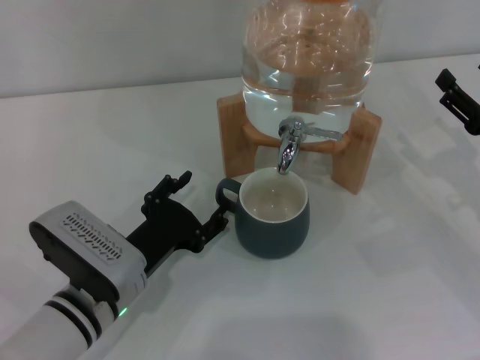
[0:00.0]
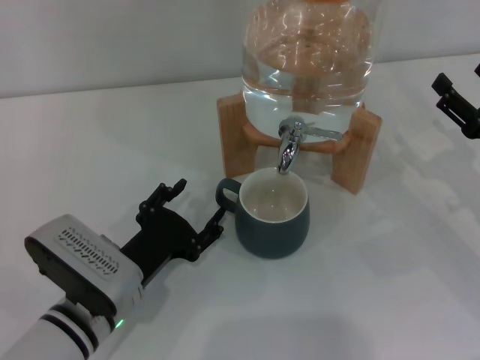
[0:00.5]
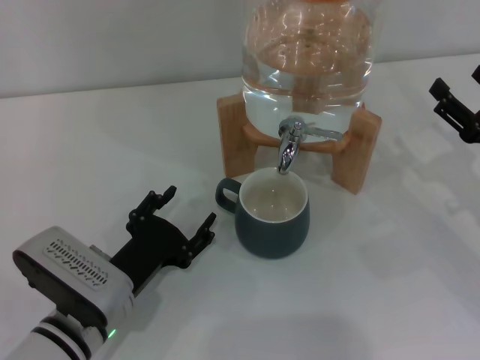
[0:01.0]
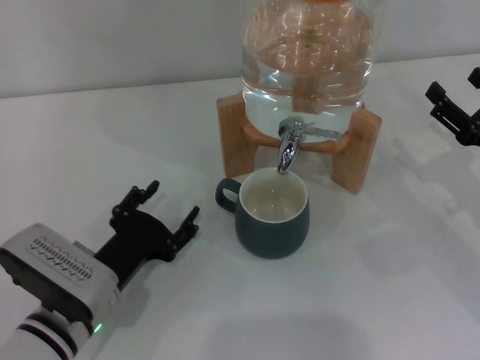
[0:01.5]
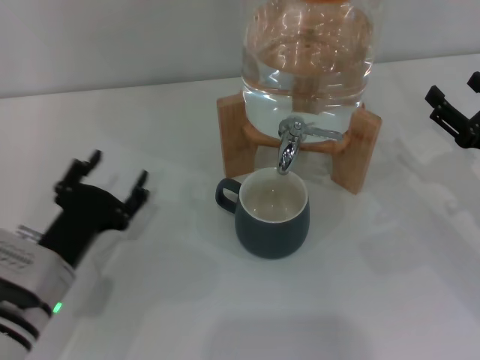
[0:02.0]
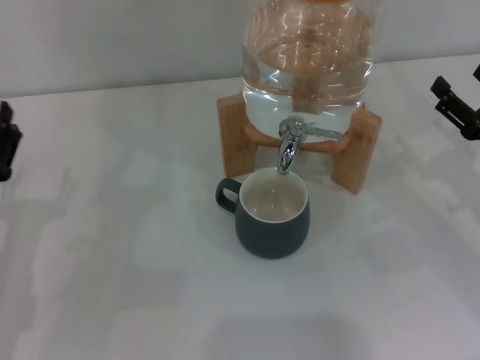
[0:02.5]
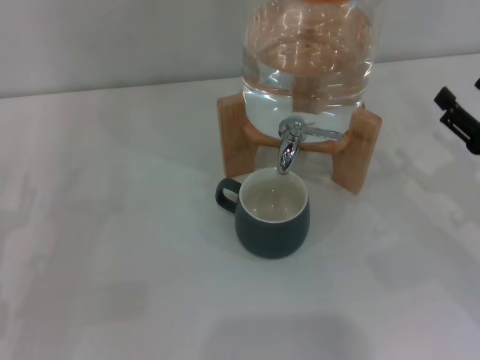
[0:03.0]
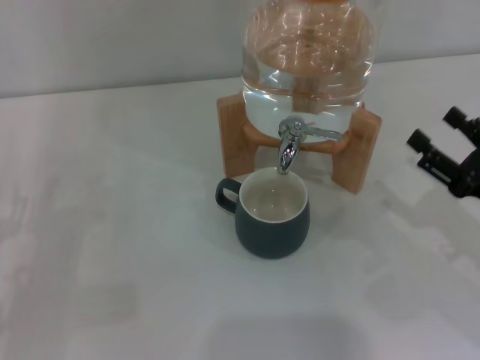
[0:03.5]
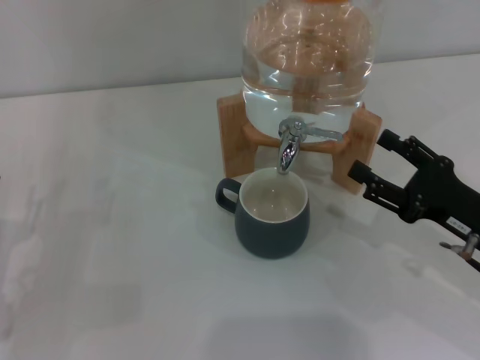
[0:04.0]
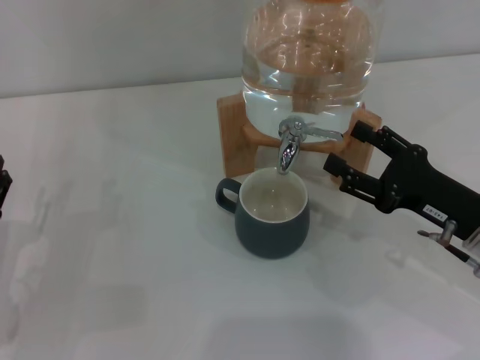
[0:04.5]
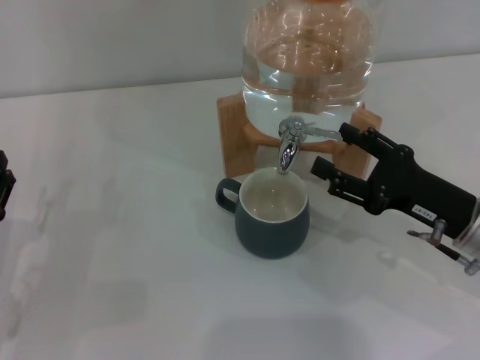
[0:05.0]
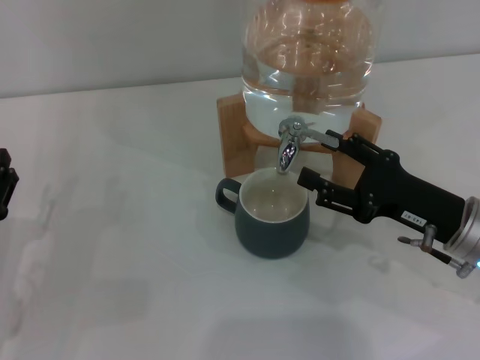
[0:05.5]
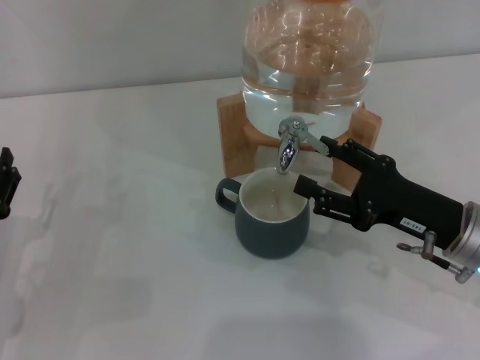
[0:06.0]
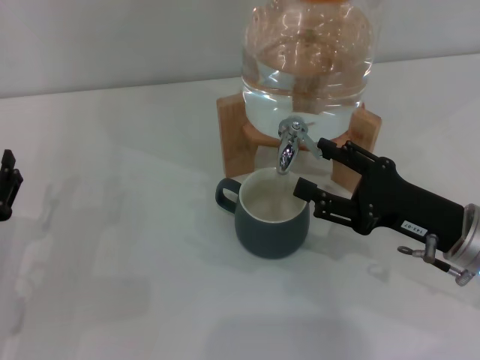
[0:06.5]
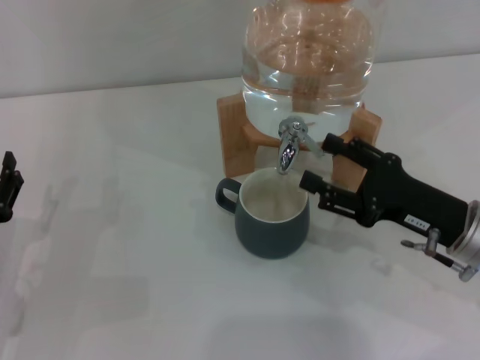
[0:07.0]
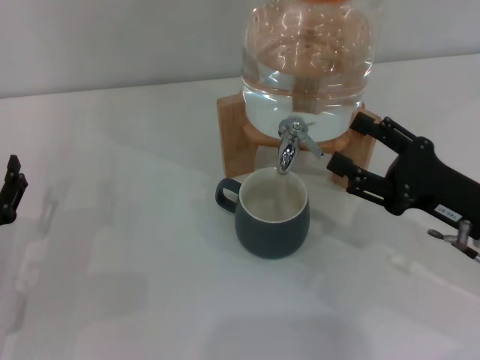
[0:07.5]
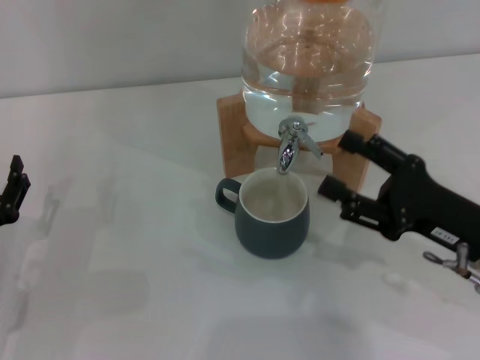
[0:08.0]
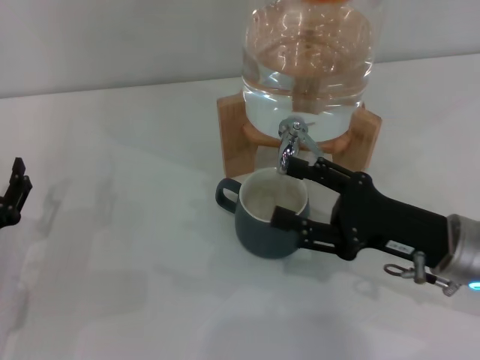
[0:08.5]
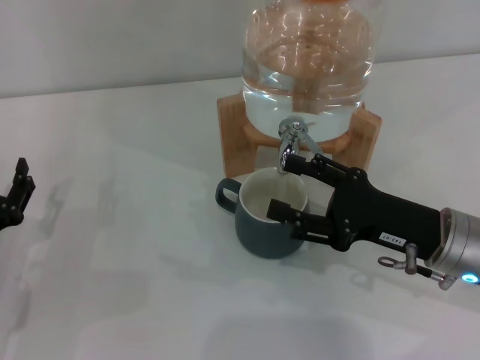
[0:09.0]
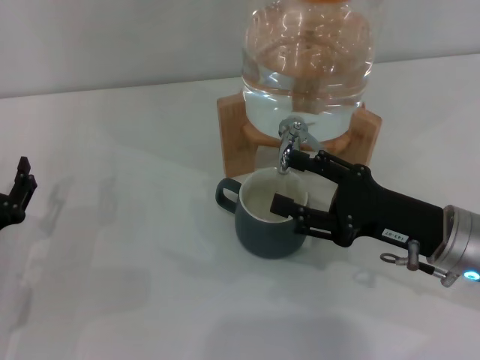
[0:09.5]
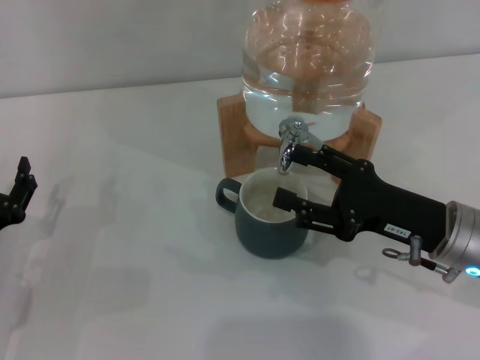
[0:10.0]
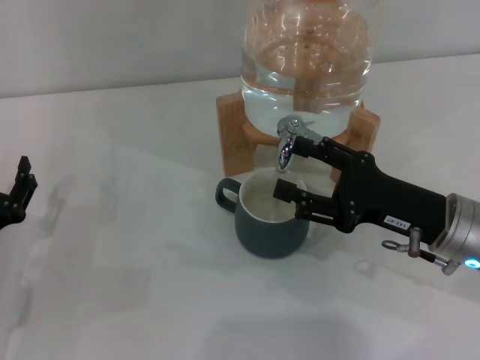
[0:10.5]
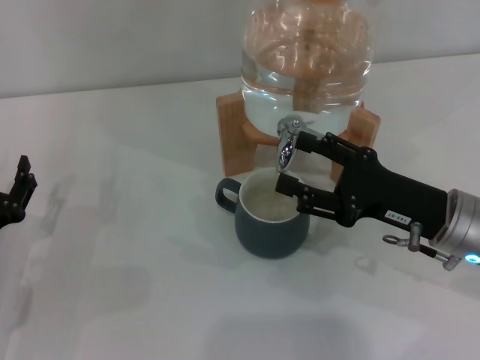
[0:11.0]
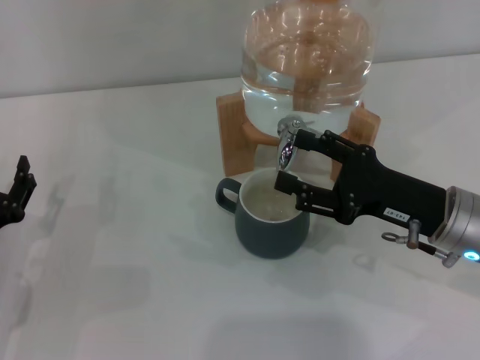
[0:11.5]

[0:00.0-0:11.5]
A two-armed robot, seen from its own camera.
Task of the whole recording: the left gripper pick up the black cup and place it horizontally under the faucet, the right gripper turn on the faucet to fill the cup, and then turn off the faucet.
Step, 0:02.0 to 0:08.5: Open the dispenser valve and fill the cup with water with the right gripper.
0:00.0 to 0:02.0: The left gripper shifts about 5 cm to the left.
0:02.0 to 0:04.0: The left gripper goes approximately 10 cm to the left. The right gripper moves about 5 cm.
0:04.0 to 0:07.5: There are only small adjustments of the grippers.
0:07.5 to 0:11.5: There are only small adjustments of the grippers.

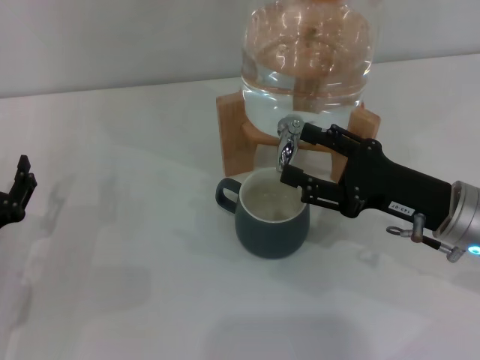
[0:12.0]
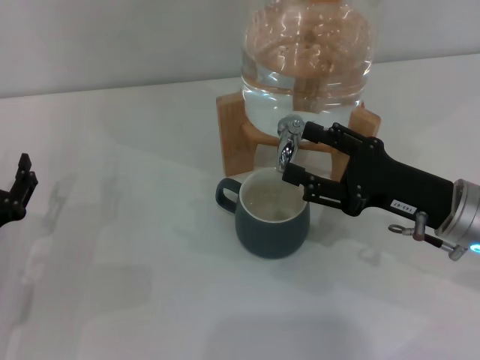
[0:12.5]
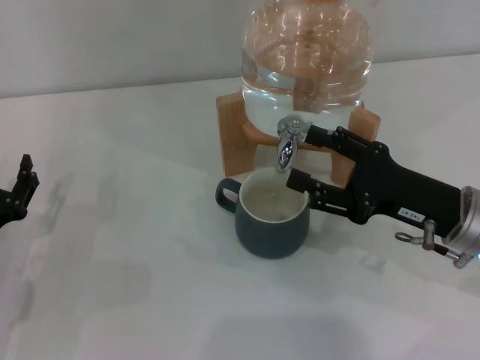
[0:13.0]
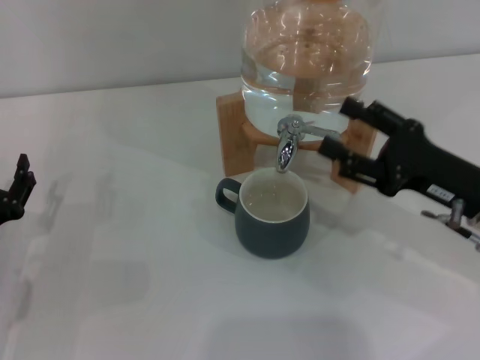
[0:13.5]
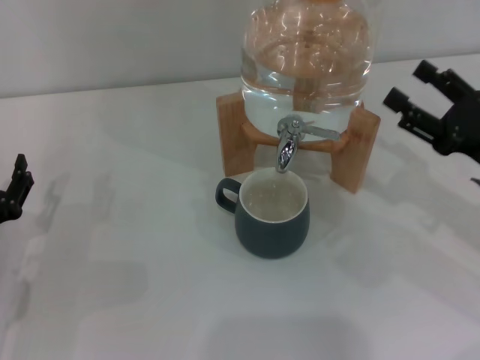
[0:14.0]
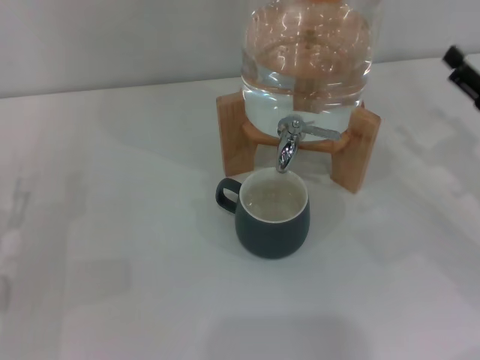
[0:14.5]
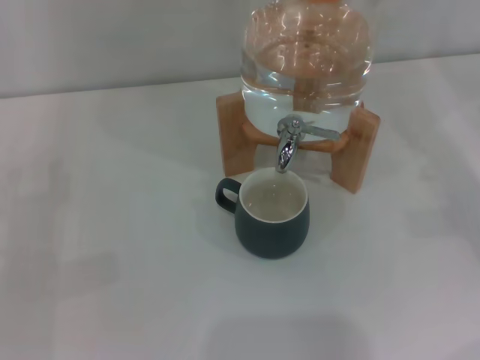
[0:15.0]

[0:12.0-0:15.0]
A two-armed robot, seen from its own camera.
Task of the whole recording: the left gripper pick up the black cup and place it horizontally under the faucet, the right gripper turn on the faucet to fill the cup, and then turn off the faucet.
0:12.0 to 0:13.5: The grippers make only small movements.
0:13.5 to 0:15.0: The right gripper shifts some 15 cm to the right.

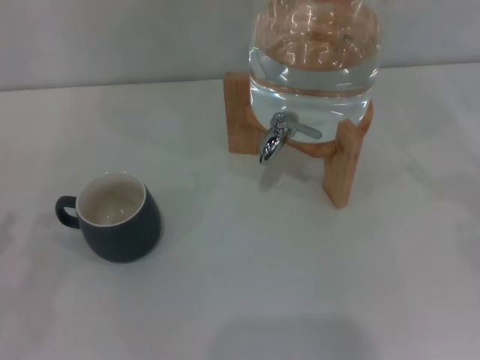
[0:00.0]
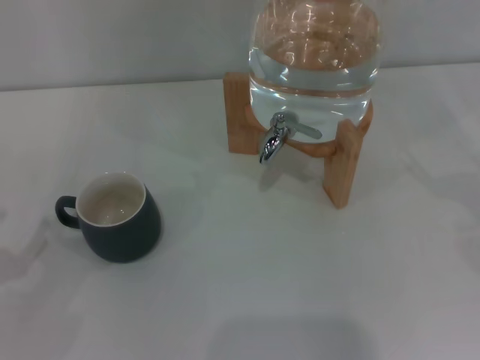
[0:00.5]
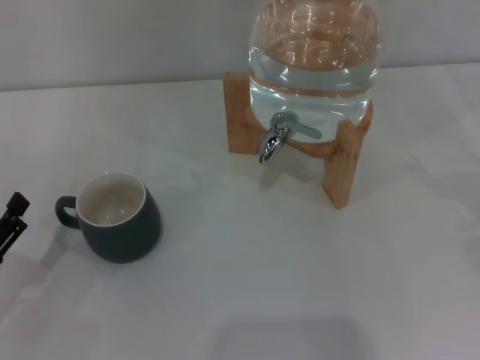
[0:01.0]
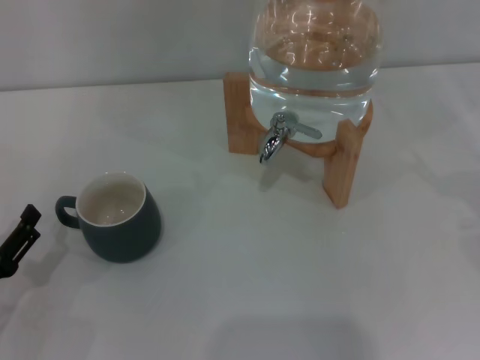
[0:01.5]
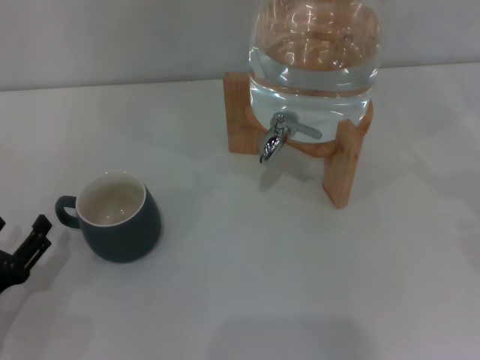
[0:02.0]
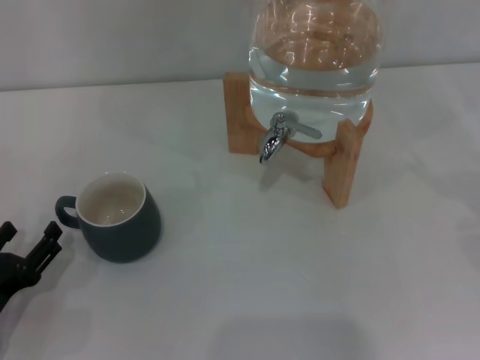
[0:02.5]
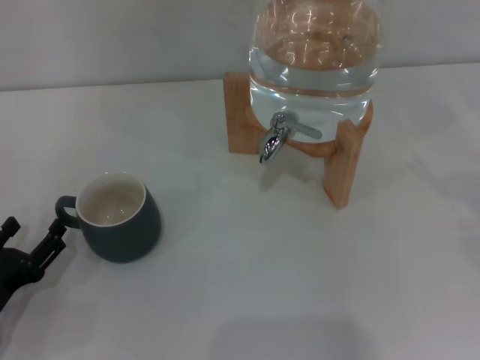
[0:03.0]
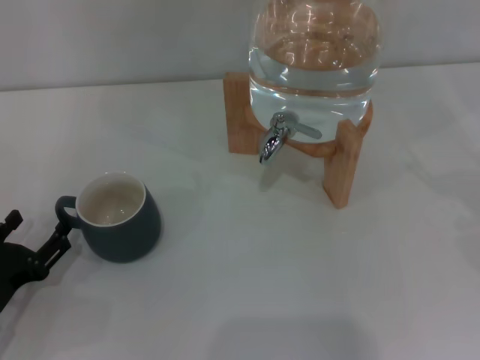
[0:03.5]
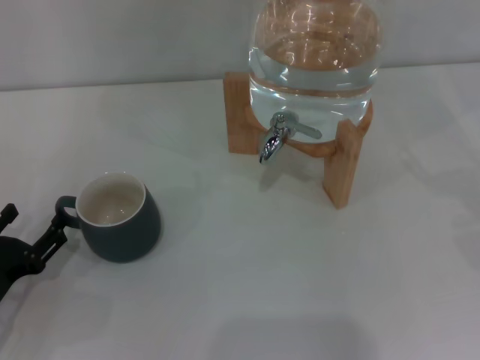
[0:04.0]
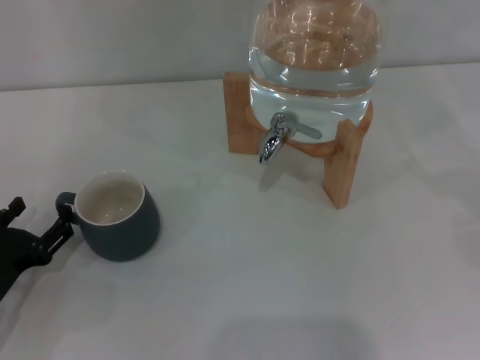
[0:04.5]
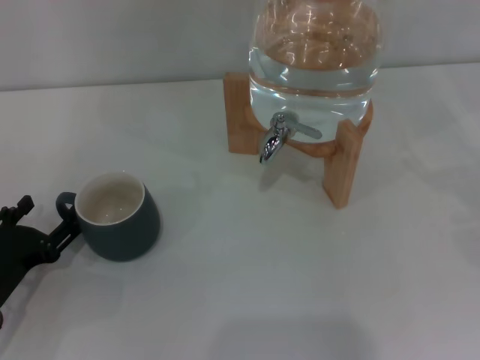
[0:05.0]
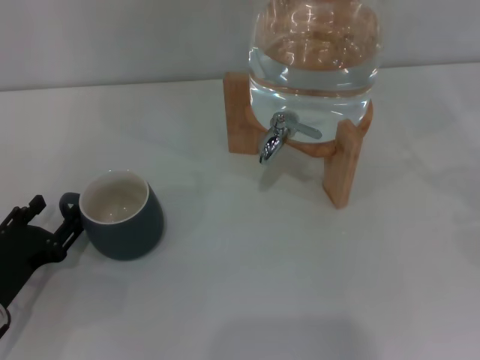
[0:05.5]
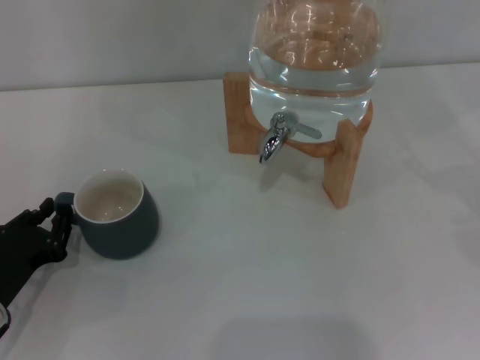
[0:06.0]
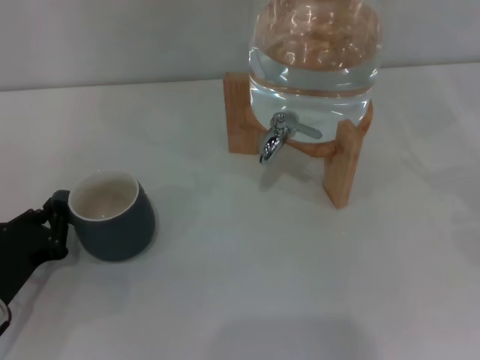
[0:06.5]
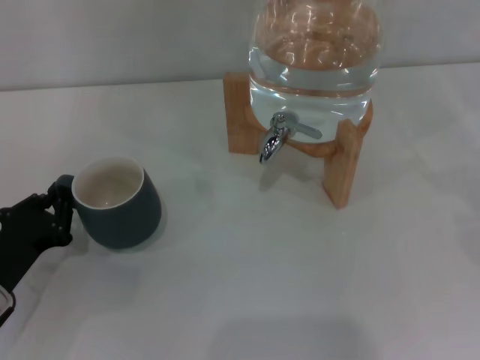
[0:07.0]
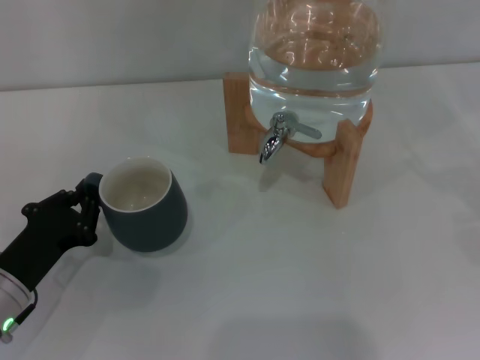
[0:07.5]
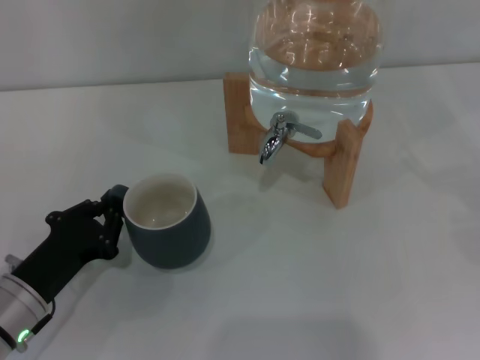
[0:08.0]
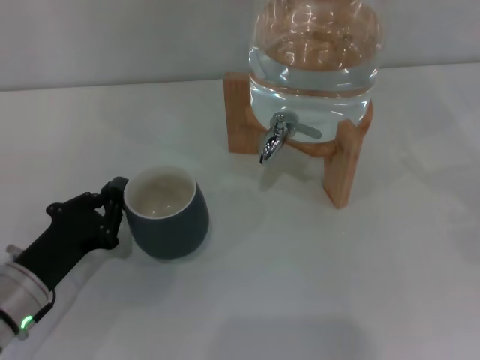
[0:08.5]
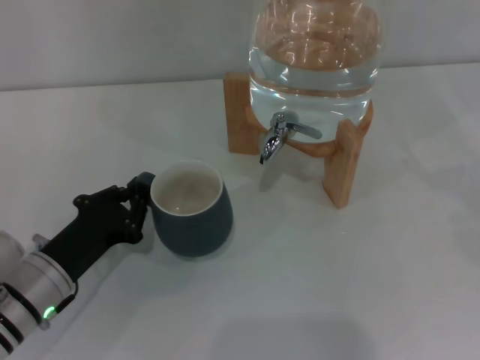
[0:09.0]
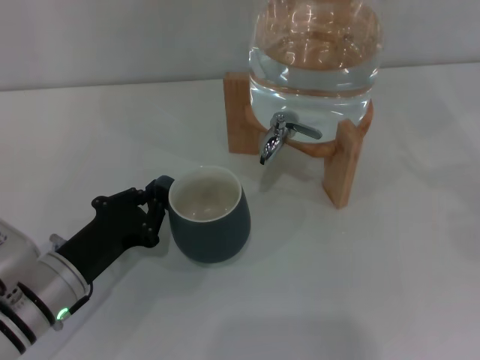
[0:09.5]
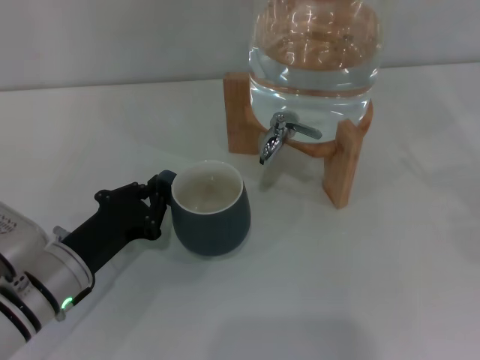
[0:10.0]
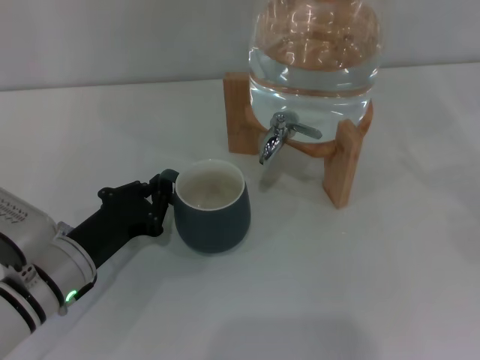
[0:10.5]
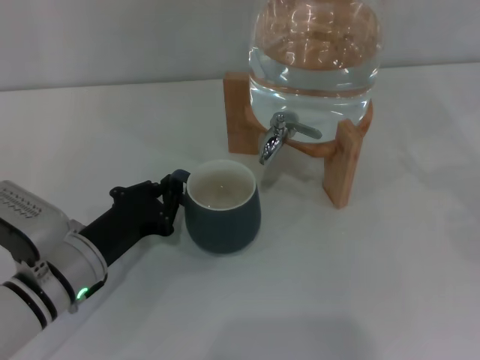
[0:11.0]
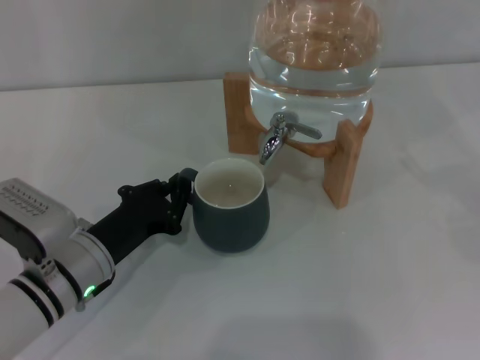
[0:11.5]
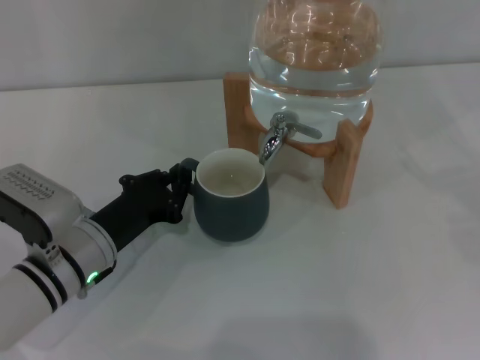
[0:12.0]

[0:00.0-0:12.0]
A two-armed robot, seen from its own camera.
Task of the whole recording: the left gripper pick up the black cup and place it horizontally under the faucet, the right gripper turn on the faucet to fill the cup, and then turn off the faucet.
0:00.0 to 0:02.0: The left gripper is displaced to the right and downward by approximately 10 cm.
0:02.0 to 0:04.0: The grippers move only a little.
0:04.0 to 0:06.0: The left gripper closes its fingers.
0:06.0 to 0:08.0: The grippers stay close to where they were, moving slightly.
0:08.0 to 0:10.0: The grippers make only small movements.
0:10.0 to 0:12.0: There are only small adjustments of the grippers.
